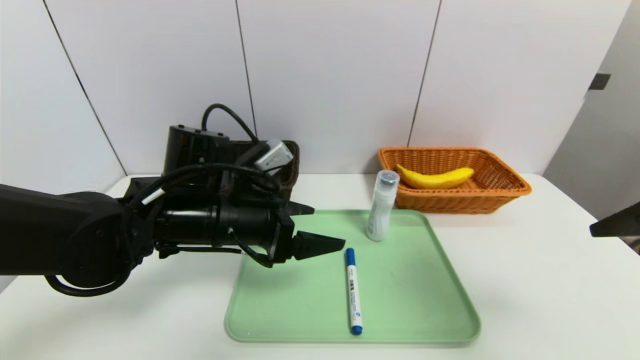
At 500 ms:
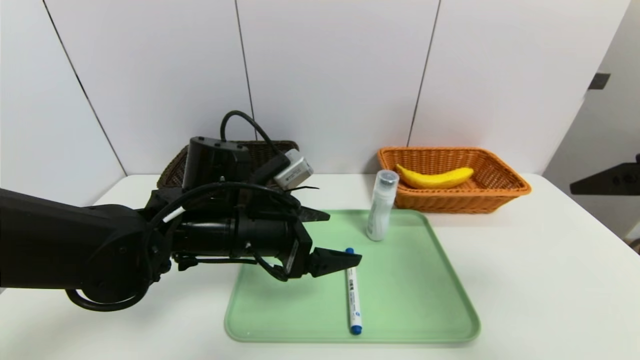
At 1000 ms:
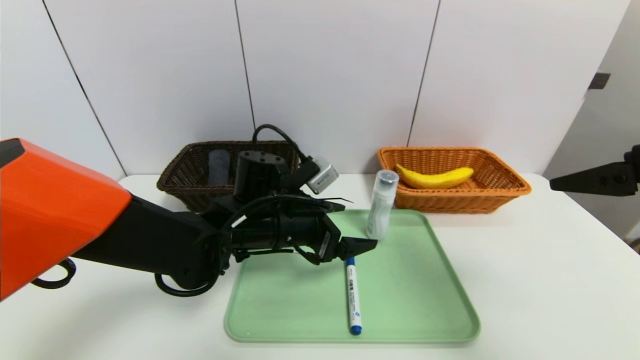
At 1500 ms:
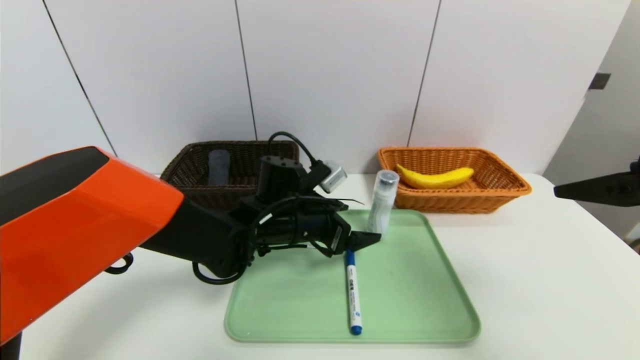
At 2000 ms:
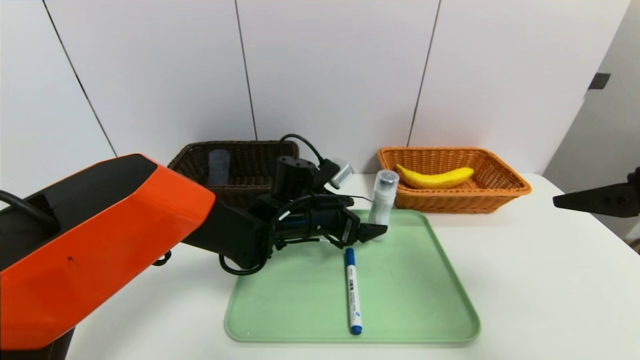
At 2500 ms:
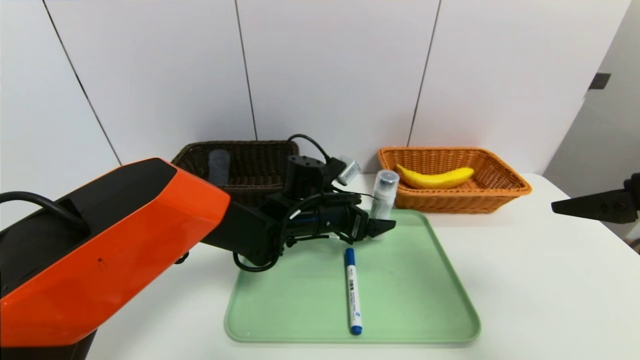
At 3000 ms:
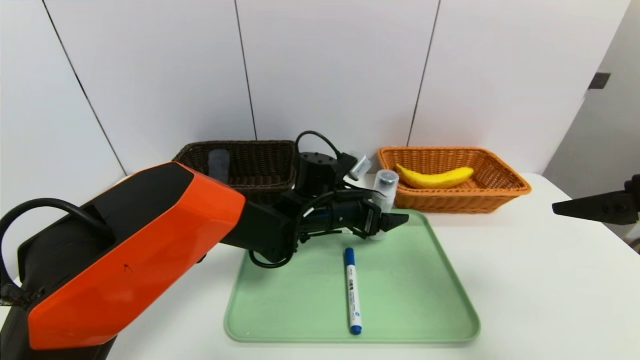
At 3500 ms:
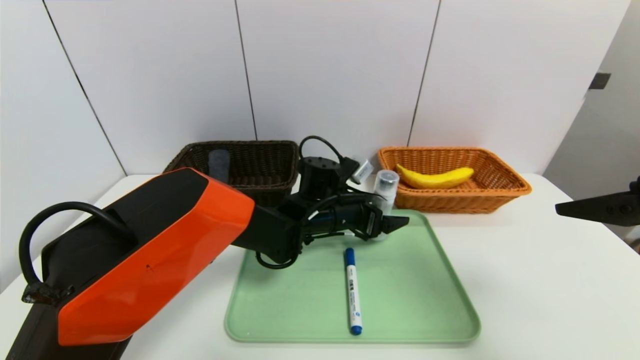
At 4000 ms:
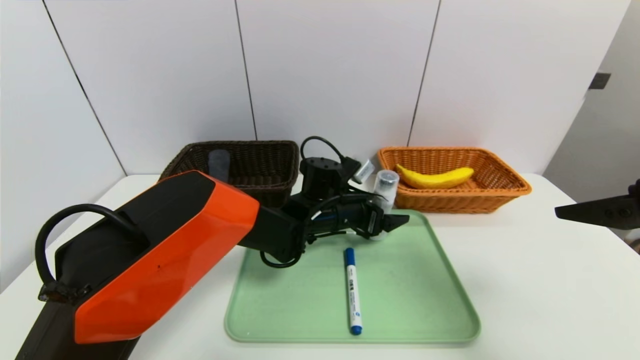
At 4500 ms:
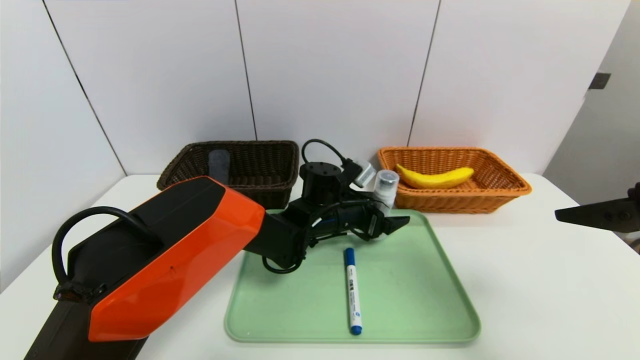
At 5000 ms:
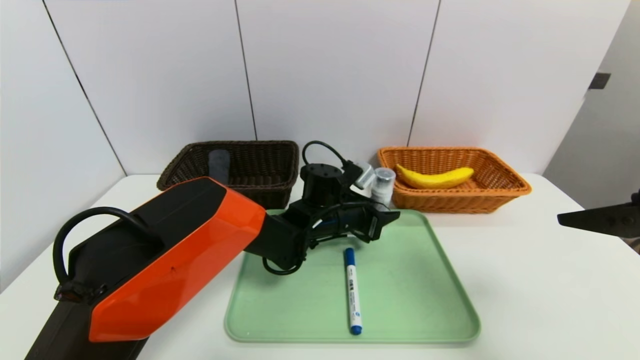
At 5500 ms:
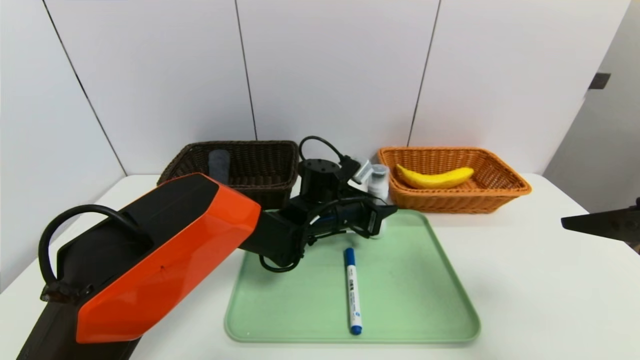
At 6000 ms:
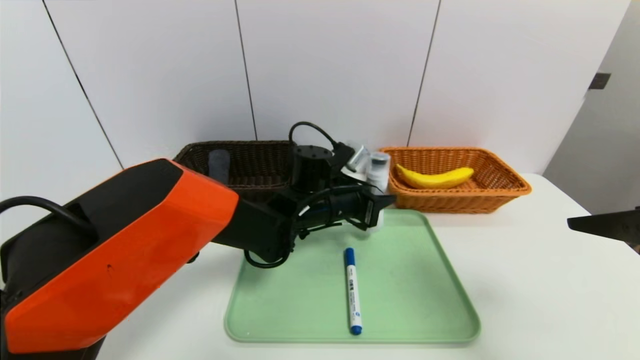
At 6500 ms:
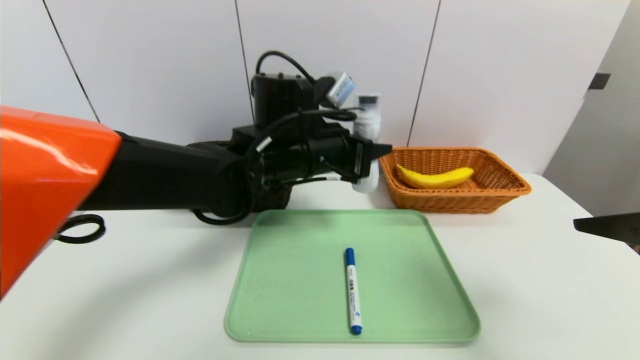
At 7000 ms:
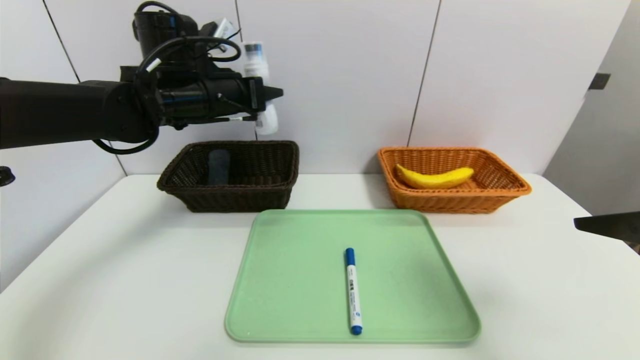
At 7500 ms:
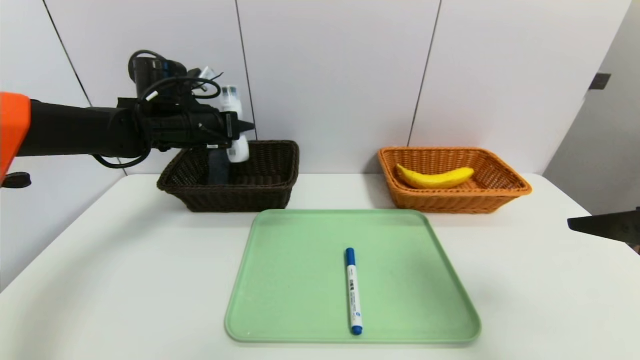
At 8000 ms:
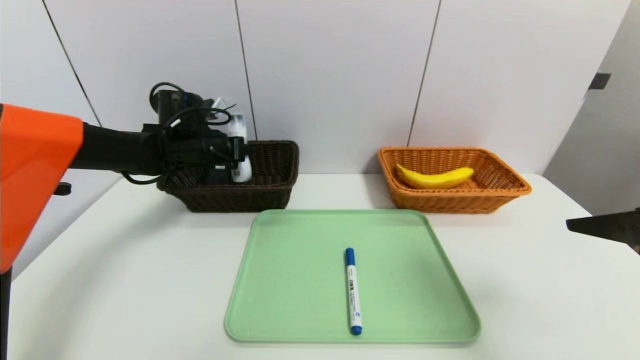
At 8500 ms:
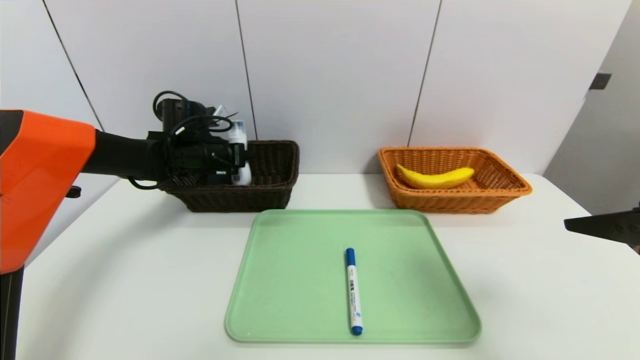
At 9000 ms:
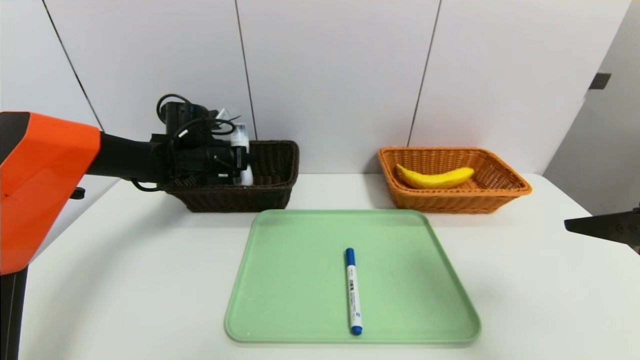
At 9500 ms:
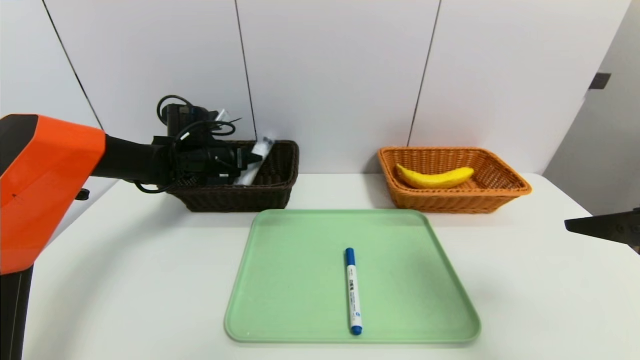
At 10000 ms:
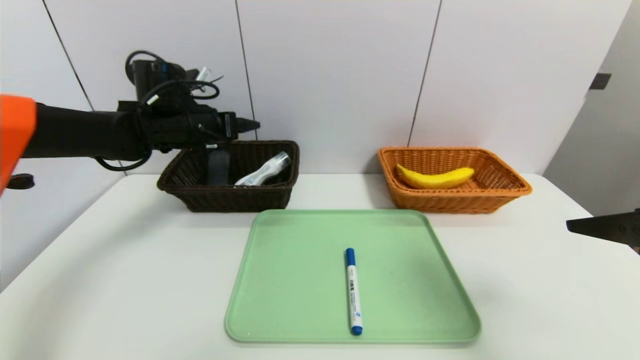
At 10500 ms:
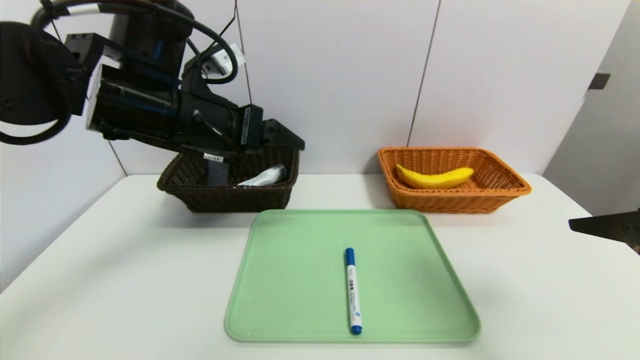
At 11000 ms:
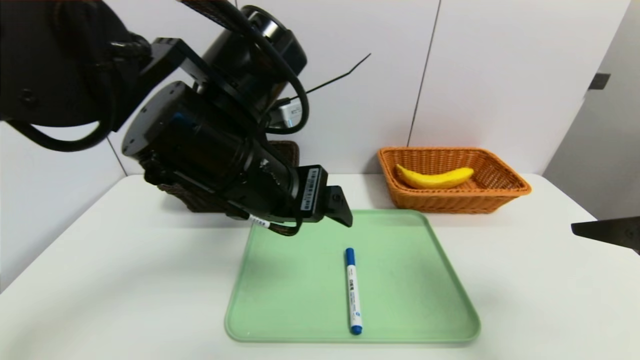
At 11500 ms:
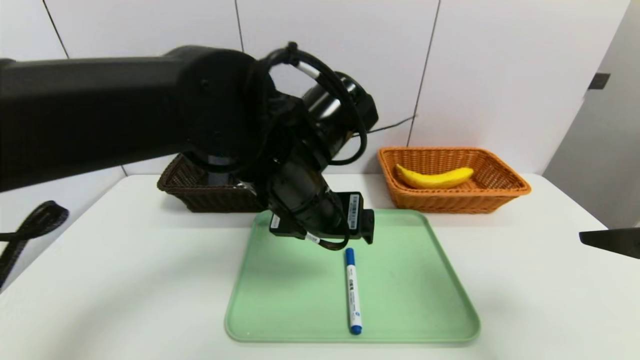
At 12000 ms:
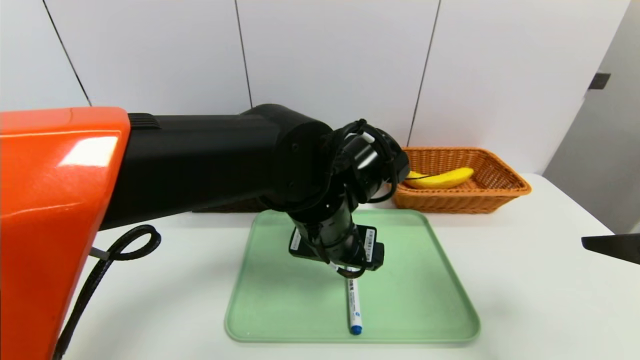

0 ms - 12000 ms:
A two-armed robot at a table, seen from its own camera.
Task of the whole recording: place the food in the right basket with the right gripper, and place the non food items in the left basket with the left gripper.
Step, 0 ms - 9500 ms: Grasp the cleaning agent and put it in the left basket.
0 ms - 2000 ms: The left gripper heads to the right, forward and downward, covering about 15 cm.
2000 ms - 4000 ms: The left gripper ends up roughly 5 cm from where it was.
4000 ms - 6000 ms: The left gripper closes up.
6000 ms - 8000 ms: The left gripper goes about 25 cm to the left.
8000 ms - 10000 ms: The left gripper goes approximately 5 cm upward, and opens.
10000 ms - 12000 ms: The left gripper is displaced to the right and backward by approximately 30 cm.

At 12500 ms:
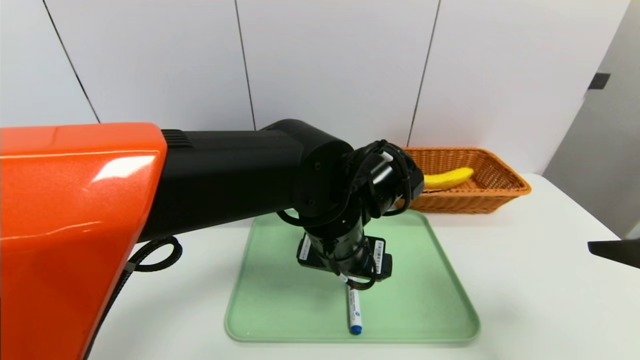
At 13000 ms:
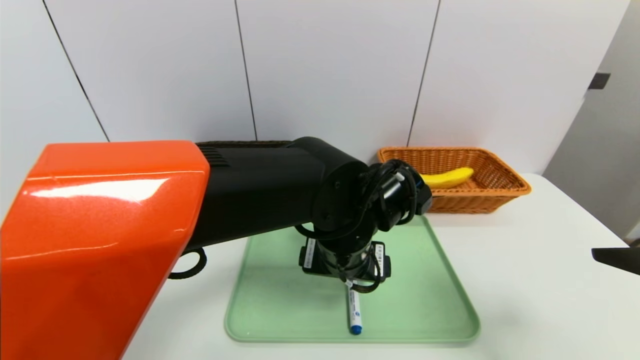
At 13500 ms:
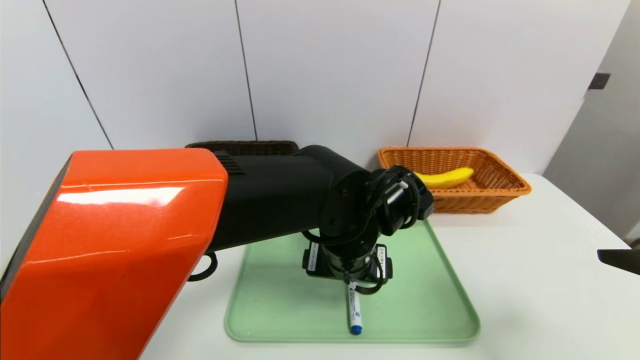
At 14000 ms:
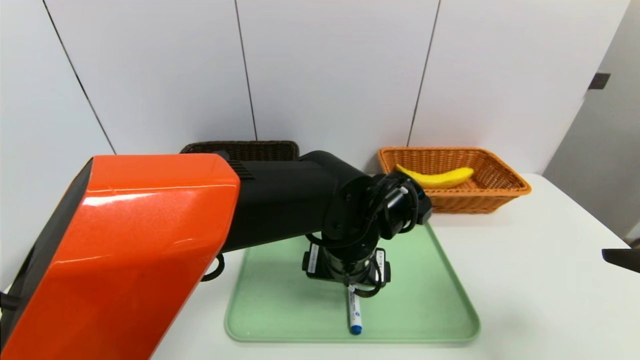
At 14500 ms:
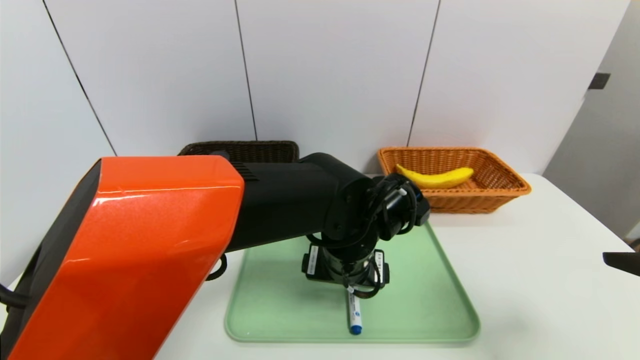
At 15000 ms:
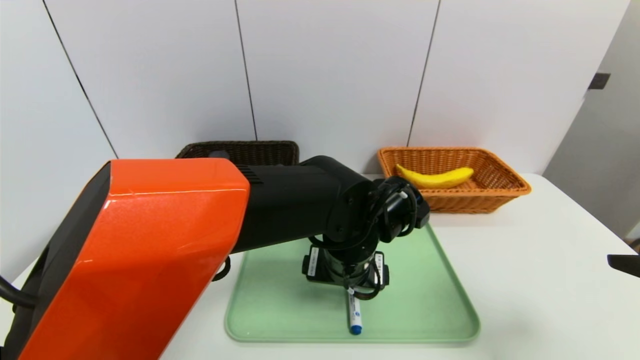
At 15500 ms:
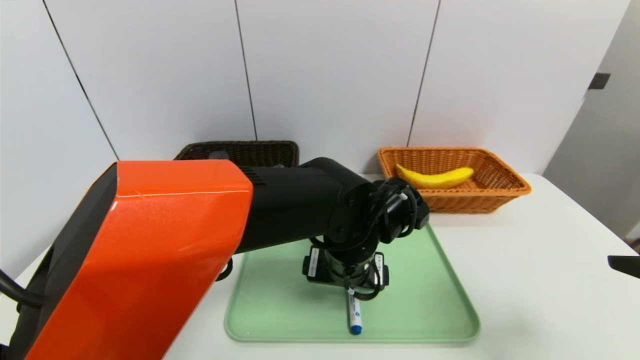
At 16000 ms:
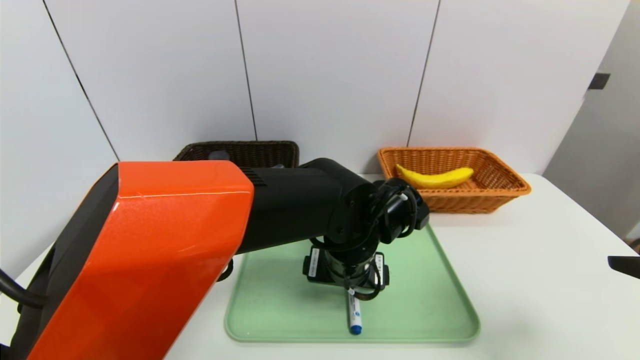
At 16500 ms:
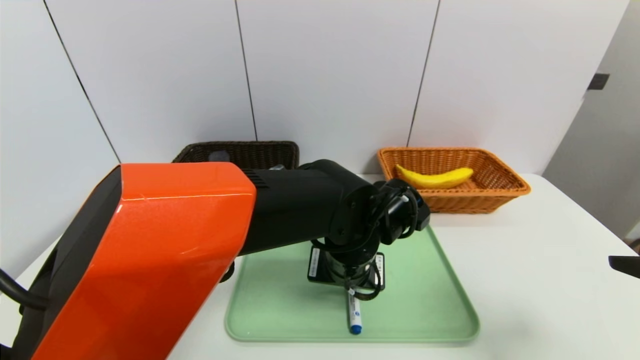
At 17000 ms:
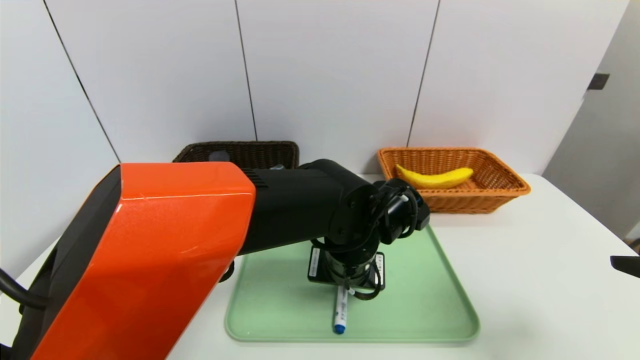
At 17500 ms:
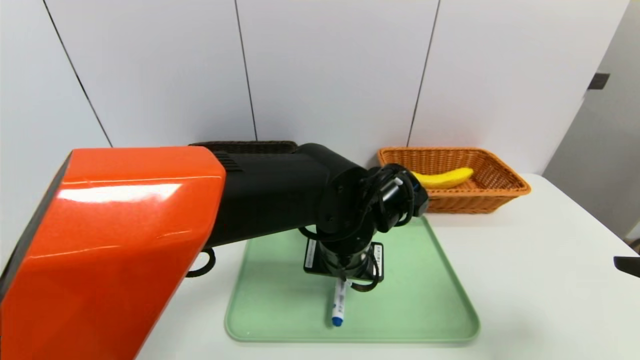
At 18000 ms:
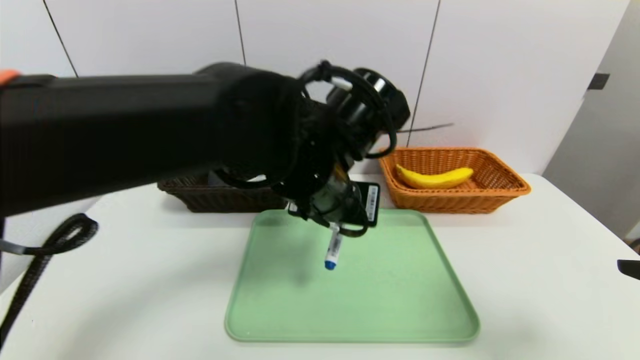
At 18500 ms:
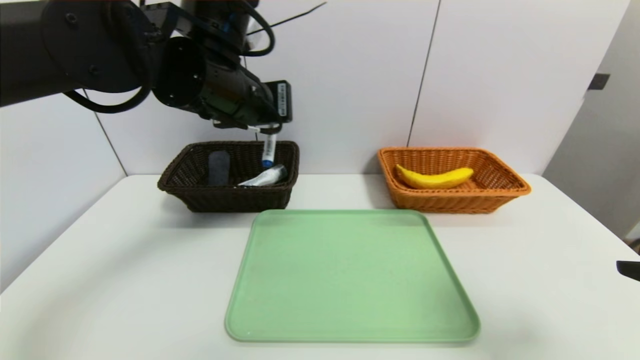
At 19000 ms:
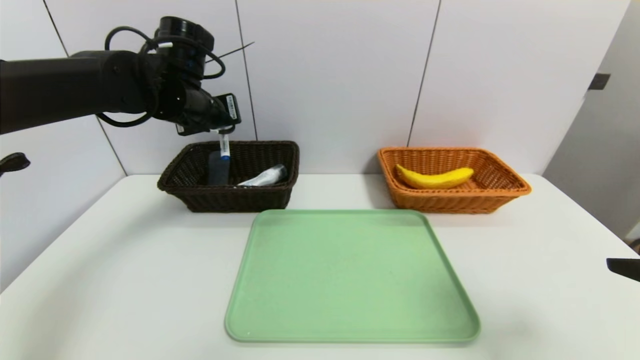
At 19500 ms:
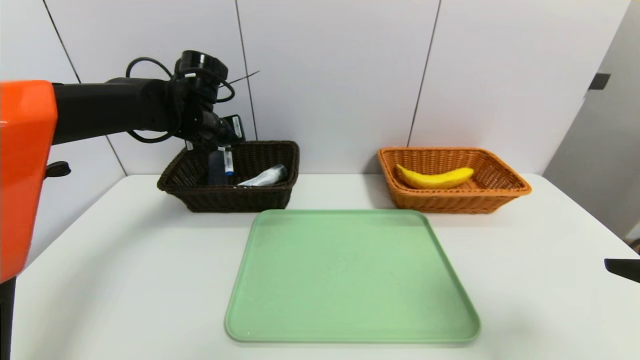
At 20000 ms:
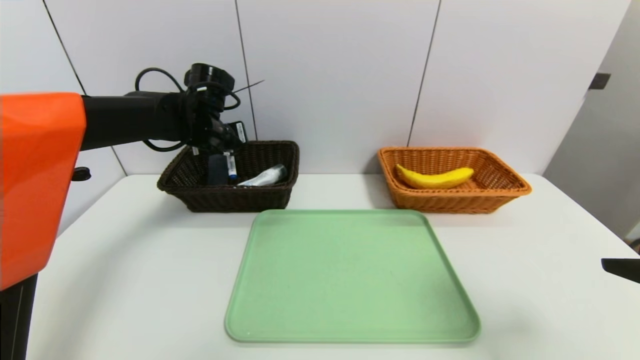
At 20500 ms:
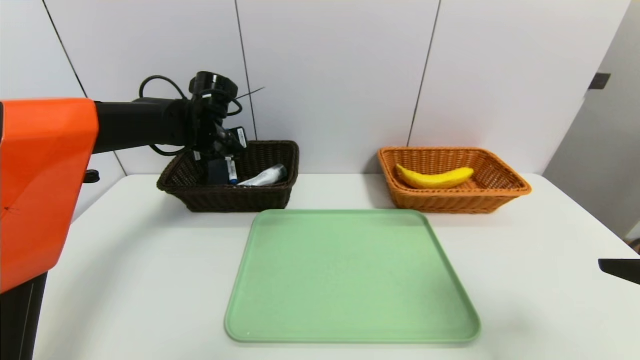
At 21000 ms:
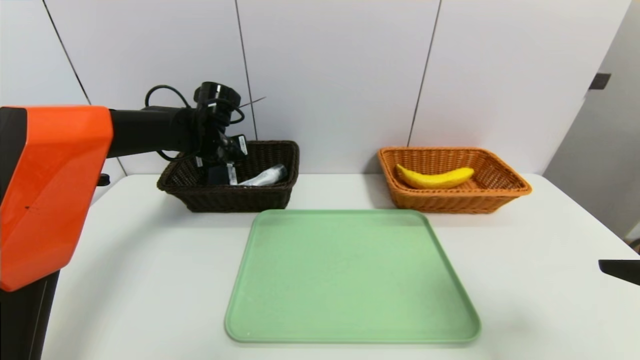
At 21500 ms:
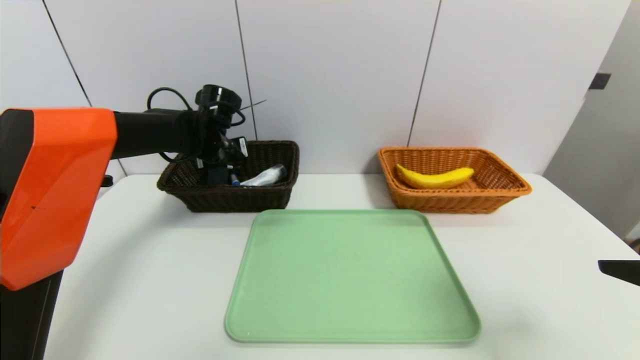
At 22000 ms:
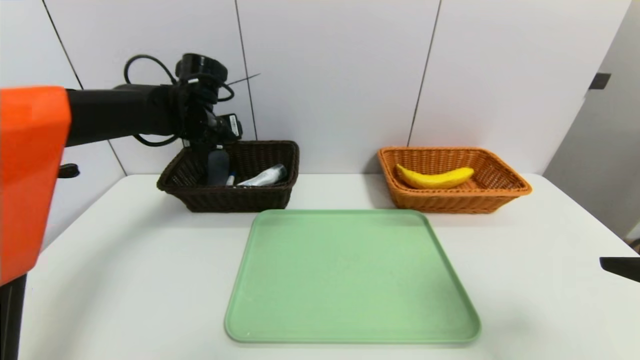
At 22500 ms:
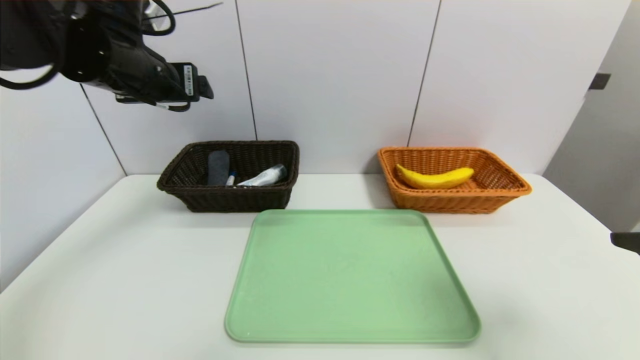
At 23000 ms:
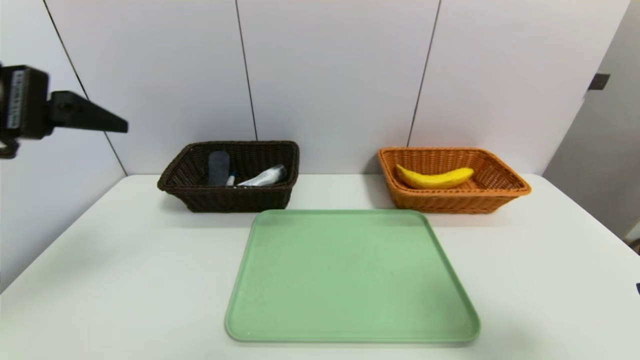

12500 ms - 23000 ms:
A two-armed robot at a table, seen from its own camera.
Task of the whole recording: place the food in the right basket with the right gripper, and place the non food items in the left basket with the left gripper.
Step, 12500 ms - 21500 ms: Grasp the blue marker and put it in the left basket.
14500 ms - 16500 ms: The left gripper closes.
16500 ms - 19000 ms: The left gripper is displaced to the left, upward and forward by roughly 30 cm, and closes up.
19000 ms - 21000 ms: The left gripper heads downward and forward, covering some 10 cm.
21000 ms - 23000 ms: The left gripper heads backward and upward, covering some 35 cm, and opens its fingers.
